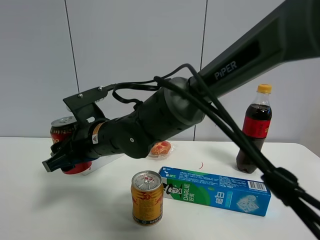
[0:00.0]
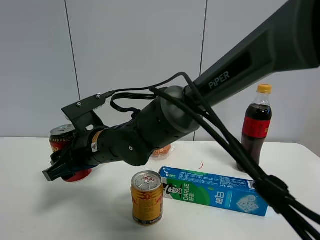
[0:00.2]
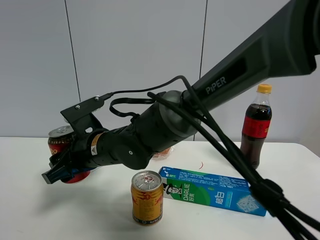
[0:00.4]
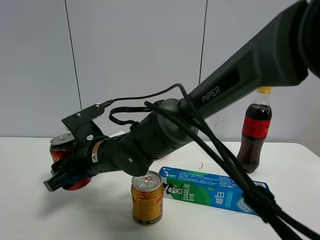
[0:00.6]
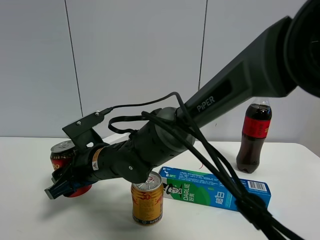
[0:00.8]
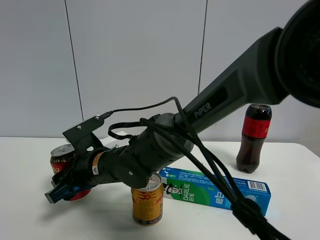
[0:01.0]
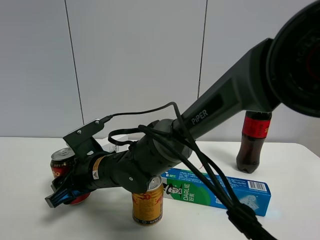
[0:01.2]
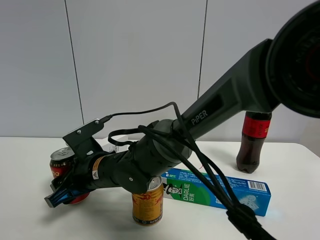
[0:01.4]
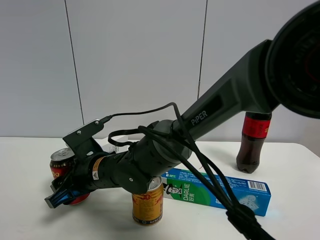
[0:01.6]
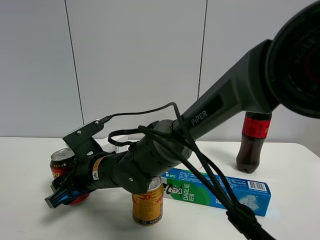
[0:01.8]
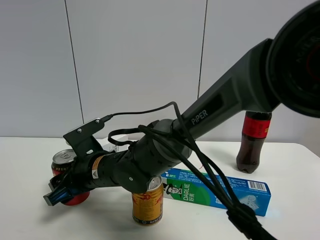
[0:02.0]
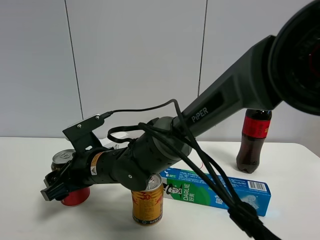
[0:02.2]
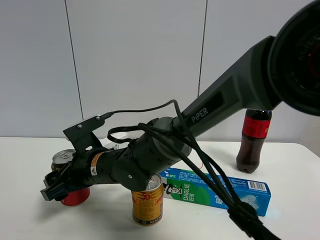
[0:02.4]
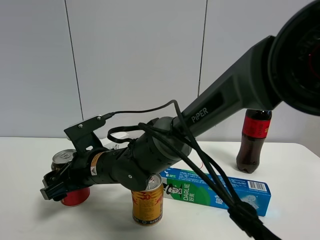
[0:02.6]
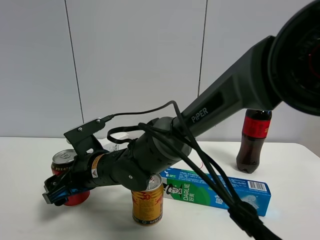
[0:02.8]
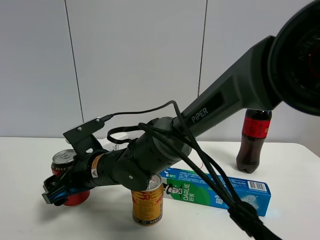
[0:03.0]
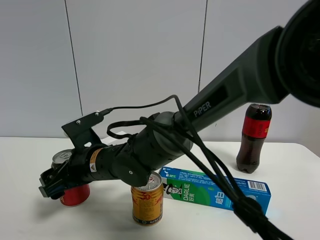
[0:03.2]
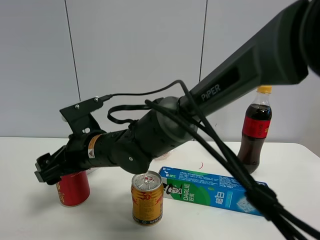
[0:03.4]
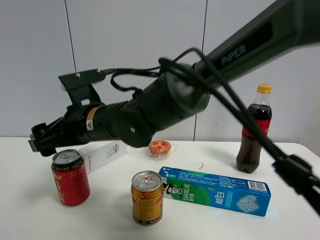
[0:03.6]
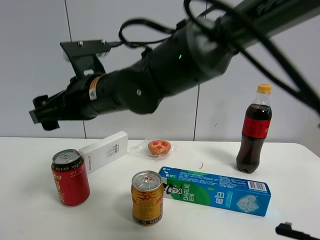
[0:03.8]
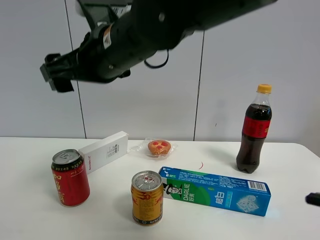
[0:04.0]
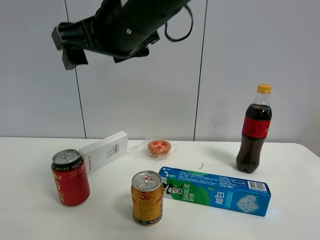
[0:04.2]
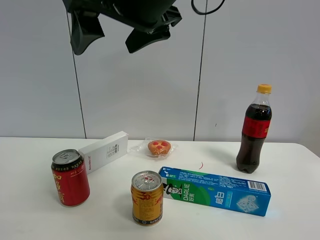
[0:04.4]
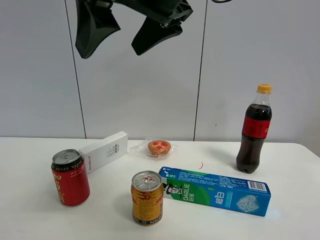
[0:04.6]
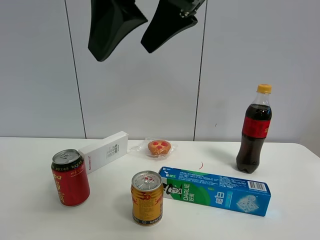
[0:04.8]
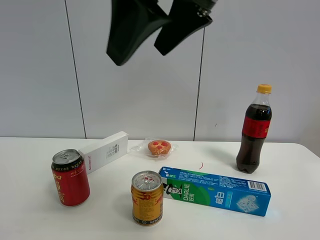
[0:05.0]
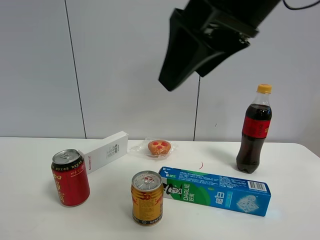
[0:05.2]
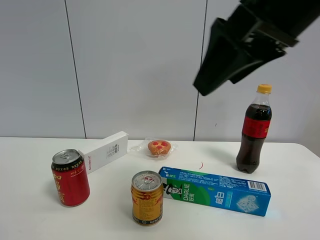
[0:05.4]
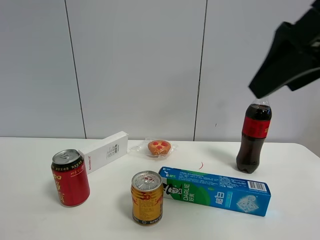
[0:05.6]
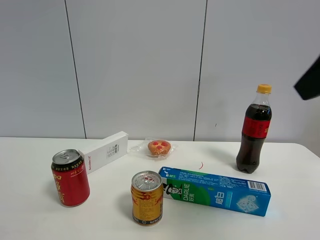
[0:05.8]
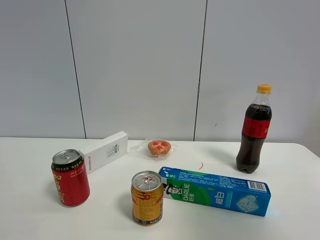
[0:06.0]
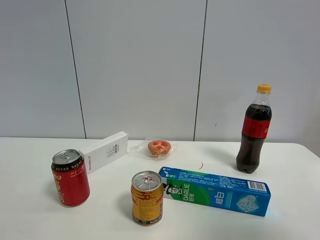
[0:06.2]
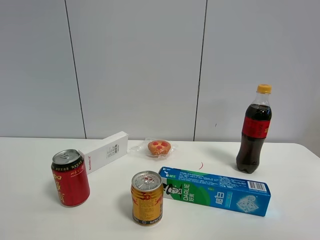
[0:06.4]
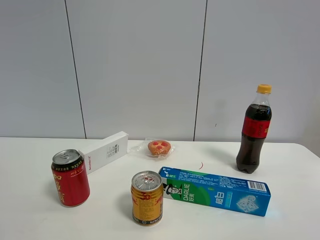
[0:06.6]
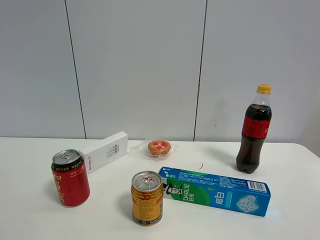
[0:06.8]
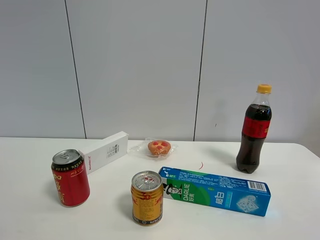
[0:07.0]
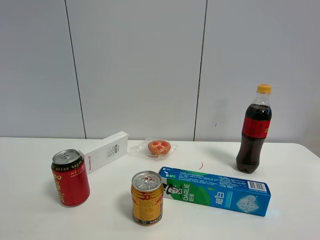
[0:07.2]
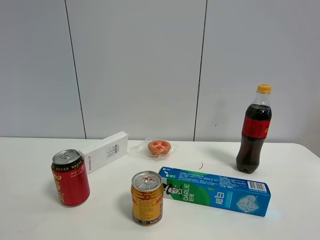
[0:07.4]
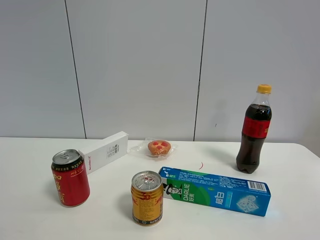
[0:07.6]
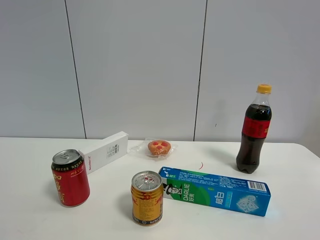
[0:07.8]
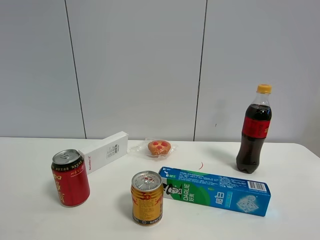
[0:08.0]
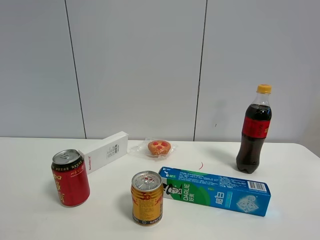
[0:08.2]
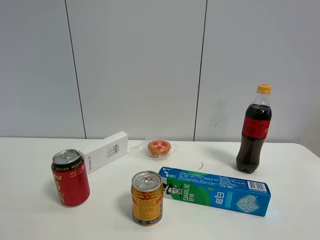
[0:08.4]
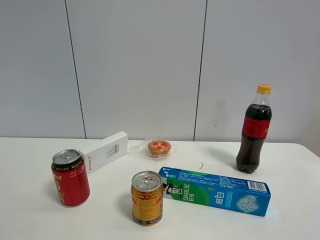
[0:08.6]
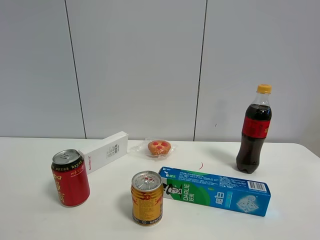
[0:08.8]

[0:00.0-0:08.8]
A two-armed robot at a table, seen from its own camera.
Task of the whole recording: the gripper move the object.
Step, 0:00.0 to 0:03.2: Place the Jia Duo Bao on the table with the right gripper.
0:00.0 to 0:01.4: The right gripper travels downward by some 5 cm.
0:01.4 to 0:03.0: The right gripper opens up.
0:03.0 to 0:04.4: The right gripper goes approximately 30 cm upward.
0:04.4 to 0:05.8: The right gripper goes some 25 cm to the right.
0:05.8 to 0:07.4: The right gripper travels backward and downward by some 20 cm.
0:07.4 to 0:08.8: Both grippers stay put.

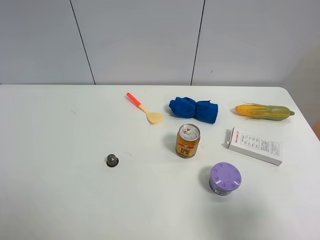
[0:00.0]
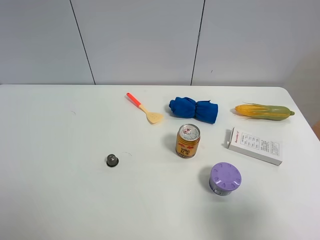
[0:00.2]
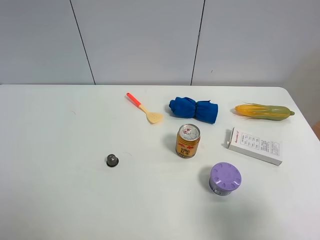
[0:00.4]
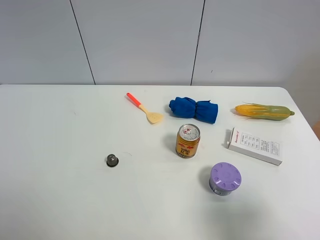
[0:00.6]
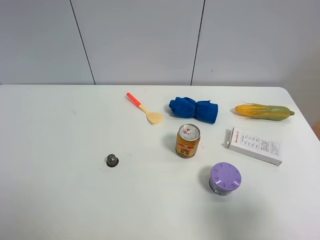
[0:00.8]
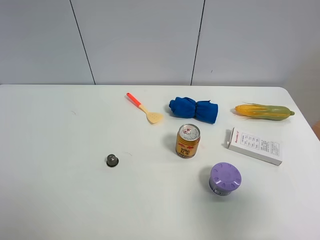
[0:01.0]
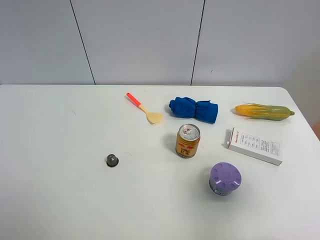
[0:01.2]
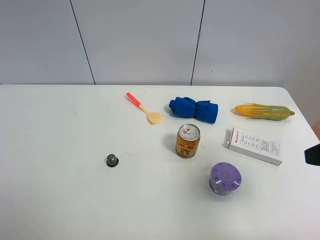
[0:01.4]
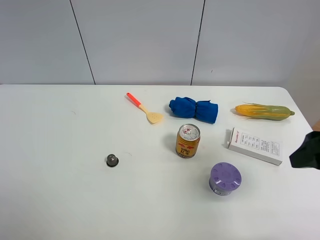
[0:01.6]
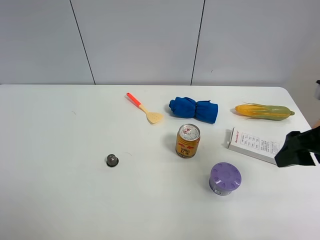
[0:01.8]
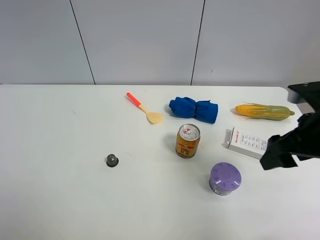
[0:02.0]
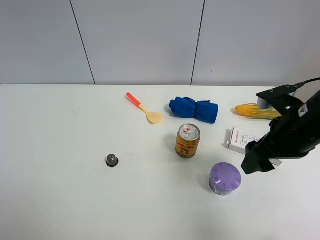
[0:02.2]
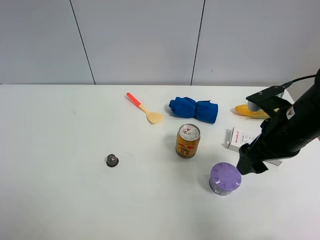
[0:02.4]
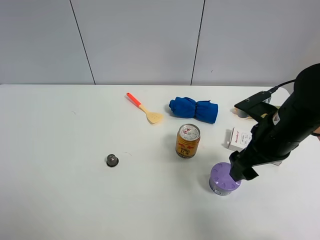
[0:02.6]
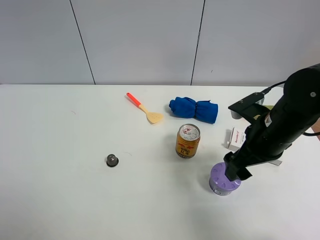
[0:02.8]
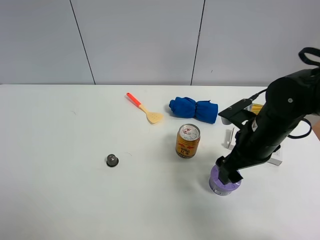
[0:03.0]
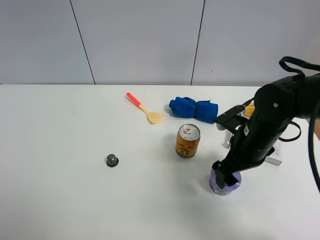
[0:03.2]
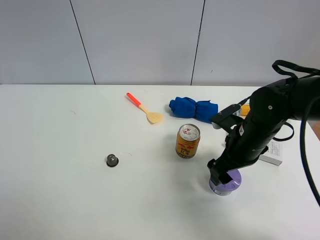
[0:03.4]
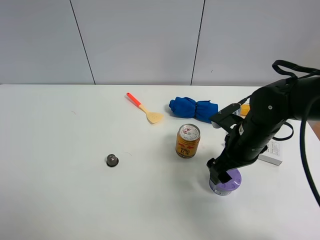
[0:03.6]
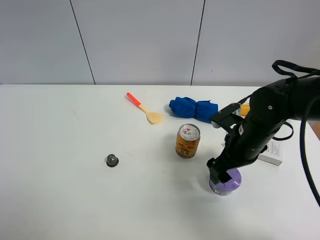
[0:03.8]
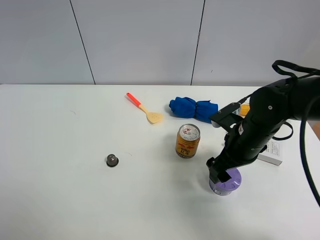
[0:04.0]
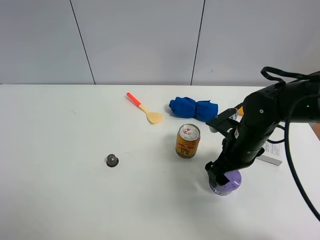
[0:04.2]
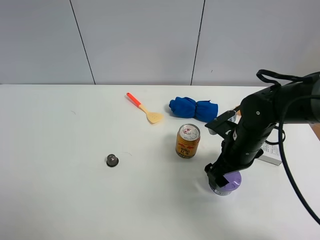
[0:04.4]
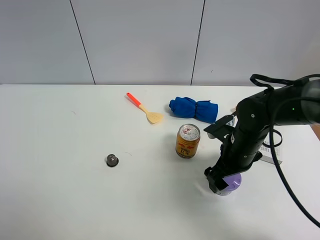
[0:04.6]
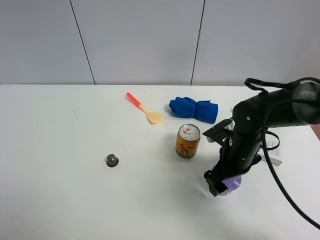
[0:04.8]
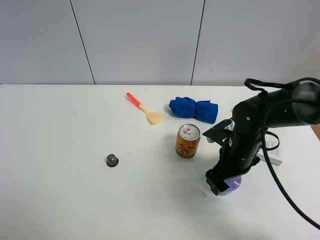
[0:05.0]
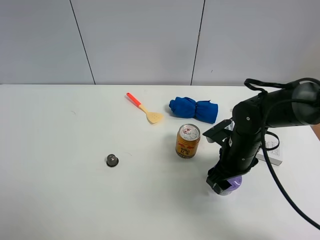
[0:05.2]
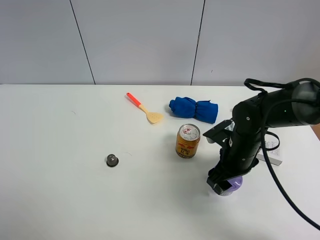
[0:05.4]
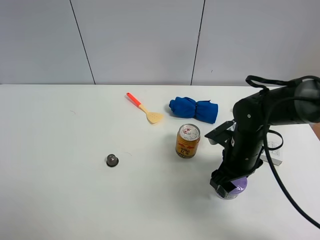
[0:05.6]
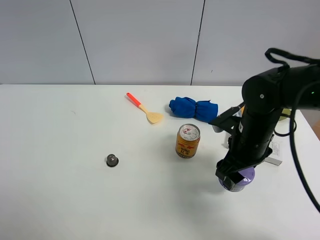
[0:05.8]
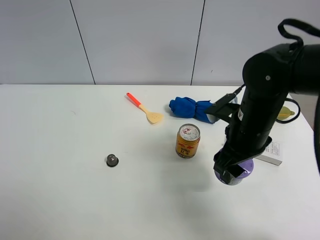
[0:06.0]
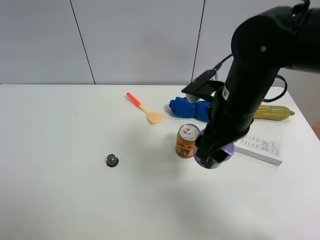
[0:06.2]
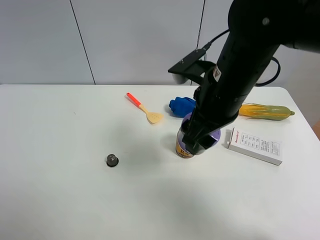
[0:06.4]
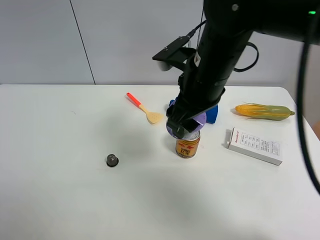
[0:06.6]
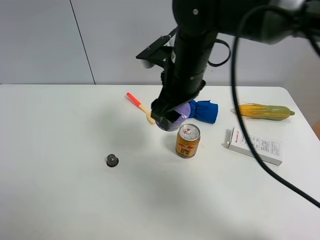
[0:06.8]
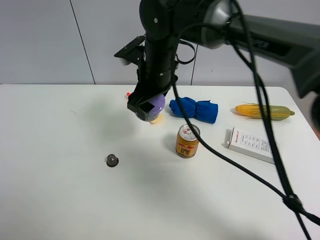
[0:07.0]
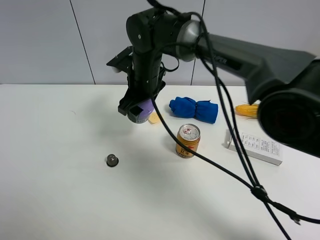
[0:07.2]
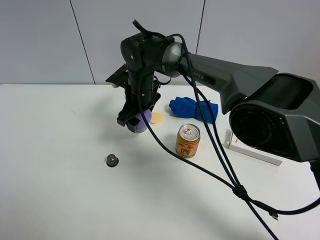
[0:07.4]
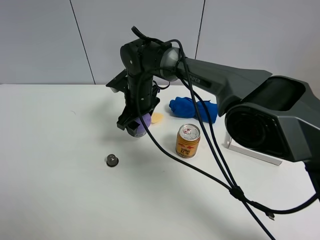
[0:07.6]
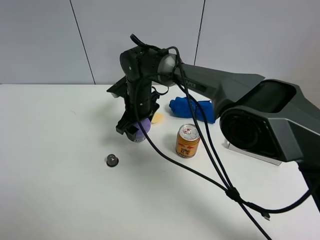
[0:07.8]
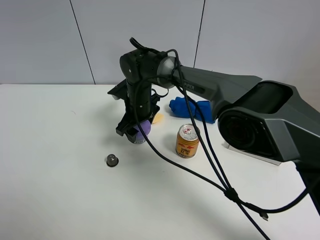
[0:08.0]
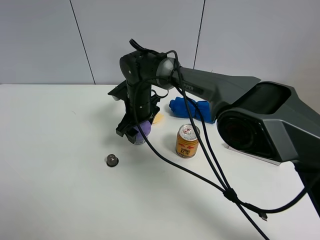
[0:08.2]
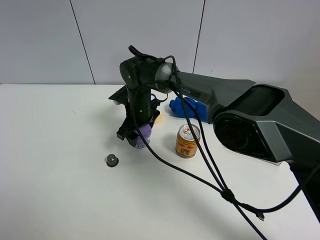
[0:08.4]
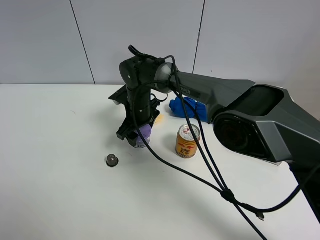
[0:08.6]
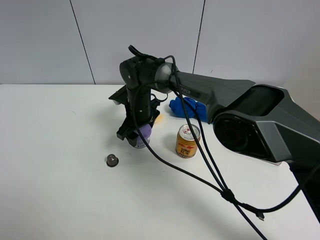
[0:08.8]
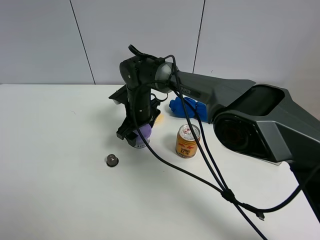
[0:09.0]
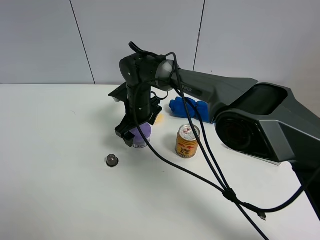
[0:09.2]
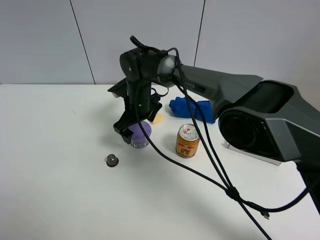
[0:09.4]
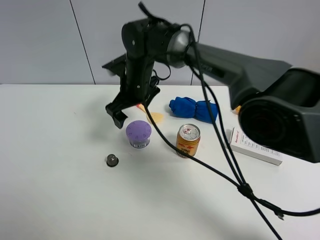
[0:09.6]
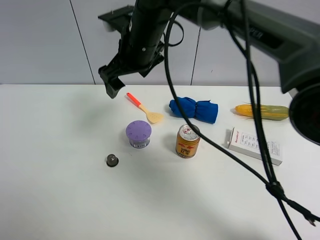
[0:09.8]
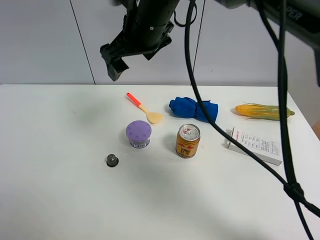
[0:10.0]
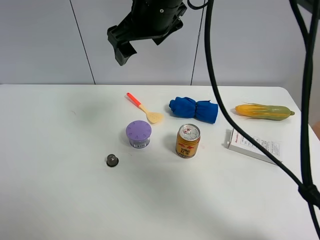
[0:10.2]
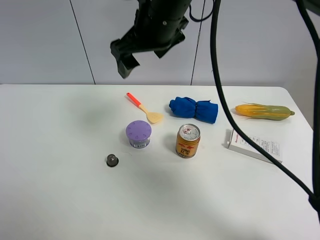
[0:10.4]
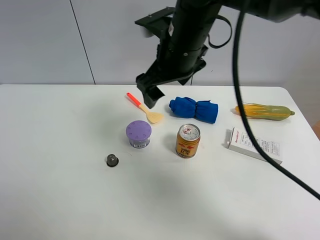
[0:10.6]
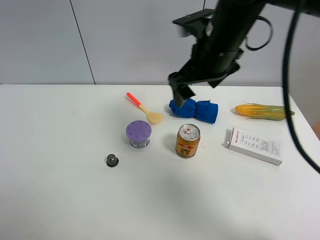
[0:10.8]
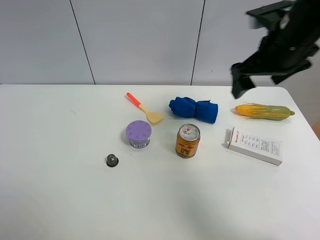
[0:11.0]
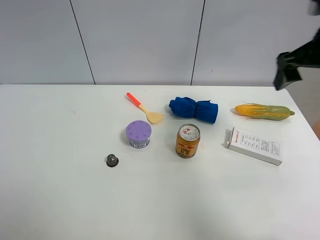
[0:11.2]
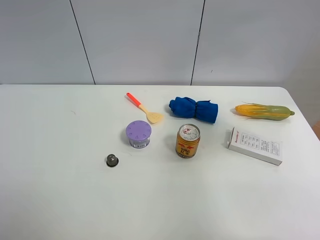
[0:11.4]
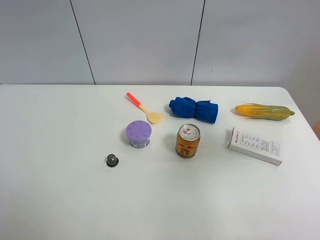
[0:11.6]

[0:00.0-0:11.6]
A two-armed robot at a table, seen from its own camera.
Task of the whole recording: the gripper move the object.
Step, 0:00.0 to 0:05.0: Grasp the Incense box with the right gripper.
Step, 0:05.2 to 0:09.2: Place the Incense box on the table with the right gripper.
0:00.0 to 0:01.4: The right gripper travels forward by approximately 10 cm, and closes its fingers.
0:01.4 to 0:02.8: The right gripper moves downward, forward and to the left, roughly 15 cm, and opens.
0:02.8 to 0:04.4: The right gripper is displaced downward by roughly 5 cm.
0:04.4 to 0:05.8: The right gripper closes up.
0:05.8 to 0:07.2: The right gripper heads to the left and forward, covering approximately 25 cm.
0:07.2 to 0:08.8: The right gripper travels downward by approximately 10 cm.
0:08.8 to 0:10.2: The right gripper goes about 25 cm upward, and opens.
0:10.2 to 0:11.6: The right gripper goes about 35 cm to the right and backward.

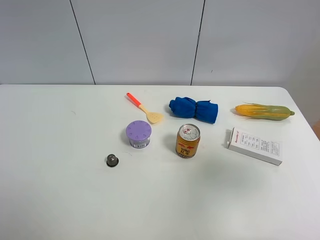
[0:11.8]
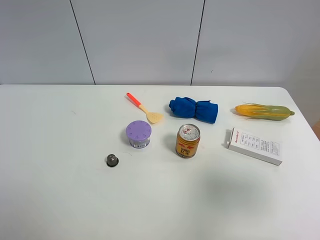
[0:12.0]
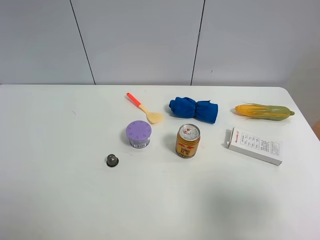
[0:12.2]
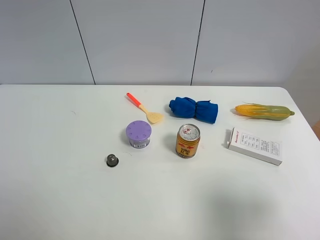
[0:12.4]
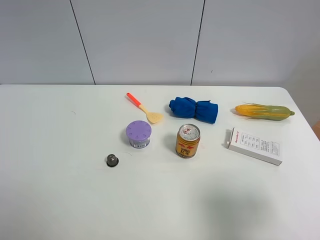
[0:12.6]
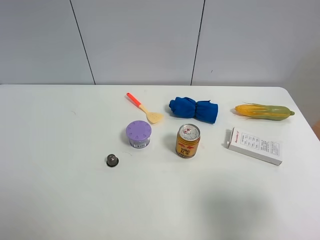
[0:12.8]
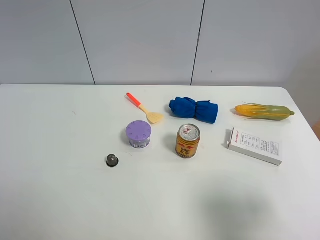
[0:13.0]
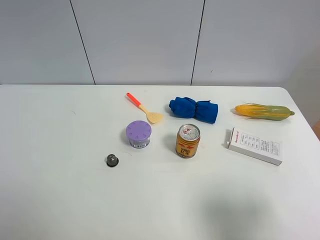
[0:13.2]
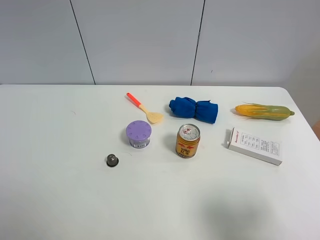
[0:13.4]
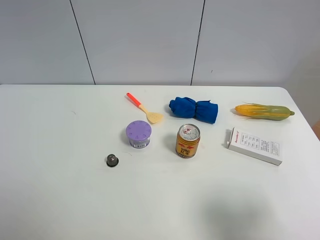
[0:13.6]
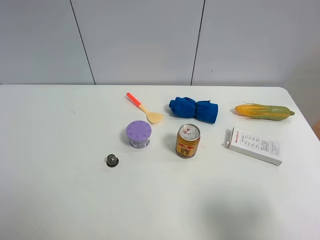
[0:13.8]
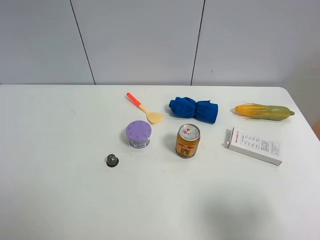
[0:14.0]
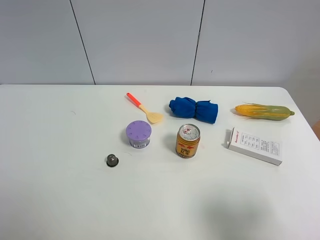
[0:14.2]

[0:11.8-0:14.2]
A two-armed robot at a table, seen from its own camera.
Task of the whole recording: the gripper move the object.
0:11.8 to 0:13.0: The right gripper heads downward and backward, covering some 10 cm.
